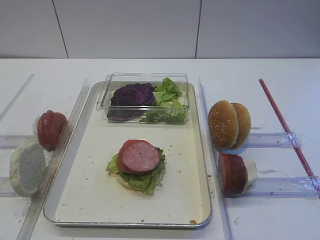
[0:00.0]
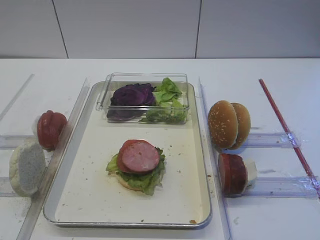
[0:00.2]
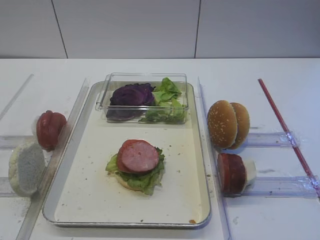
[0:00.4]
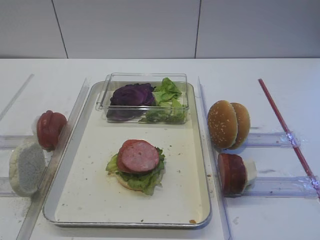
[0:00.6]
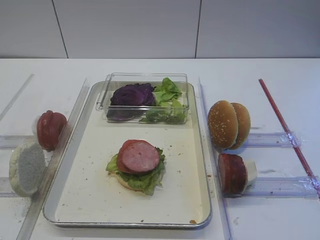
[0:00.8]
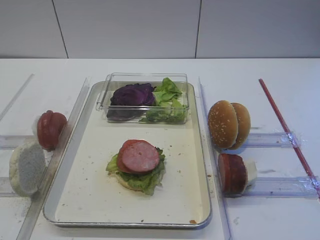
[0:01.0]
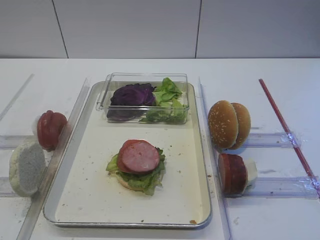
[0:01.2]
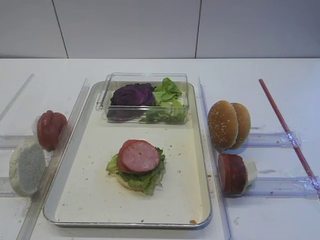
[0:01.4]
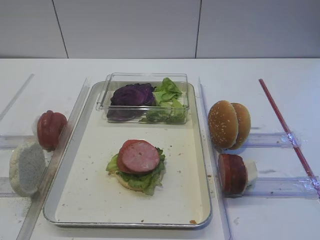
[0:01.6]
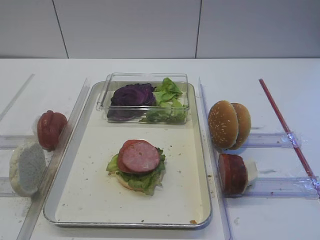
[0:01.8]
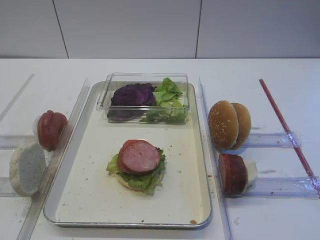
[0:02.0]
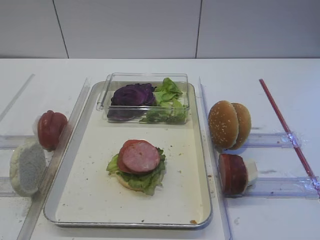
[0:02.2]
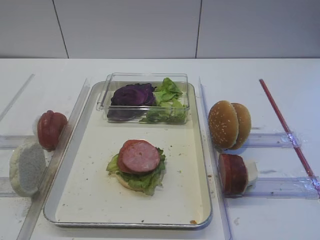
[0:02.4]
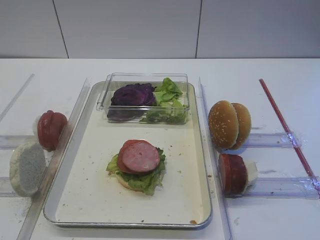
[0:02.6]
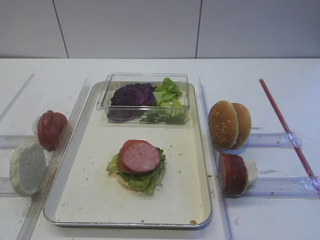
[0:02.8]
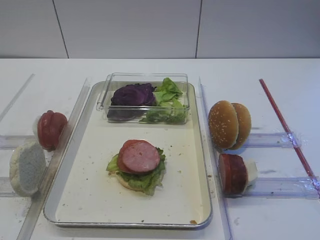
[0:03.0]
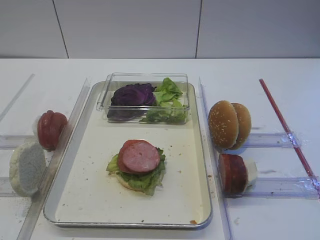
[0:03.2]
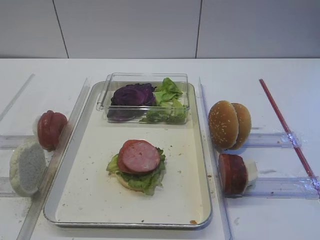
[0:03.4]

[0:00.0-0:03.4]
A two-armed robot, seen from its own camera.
0.0 to 3.4 s: Both grippers stay put.

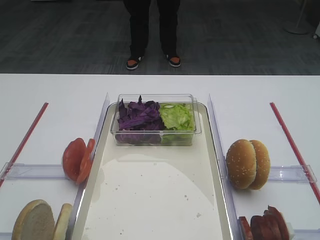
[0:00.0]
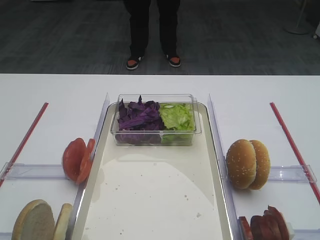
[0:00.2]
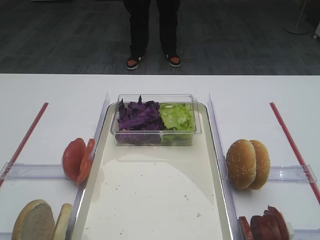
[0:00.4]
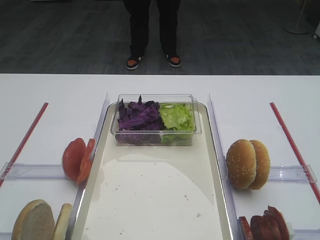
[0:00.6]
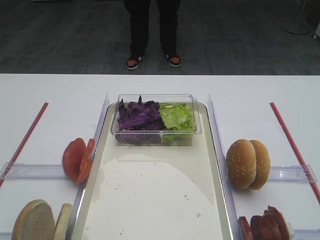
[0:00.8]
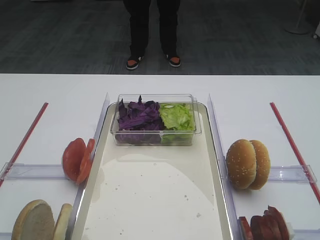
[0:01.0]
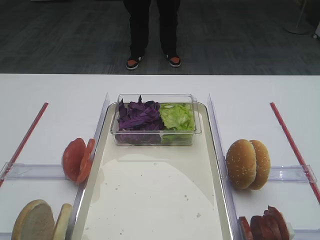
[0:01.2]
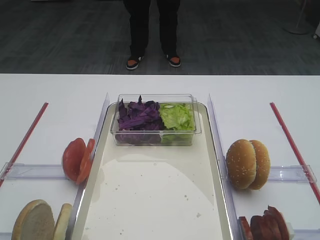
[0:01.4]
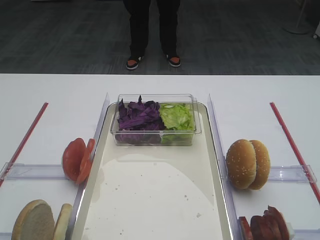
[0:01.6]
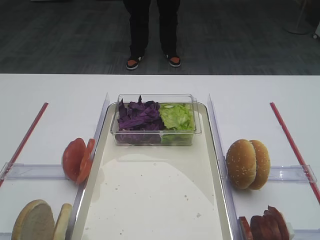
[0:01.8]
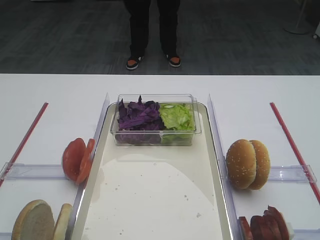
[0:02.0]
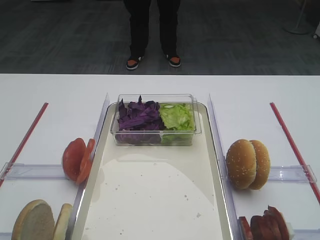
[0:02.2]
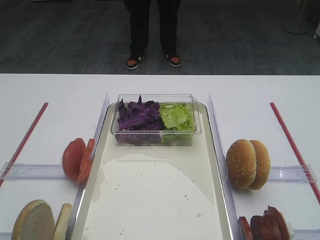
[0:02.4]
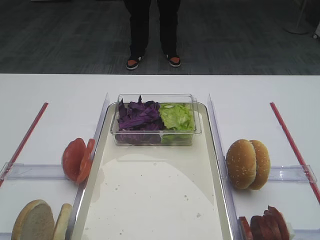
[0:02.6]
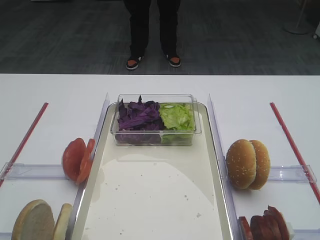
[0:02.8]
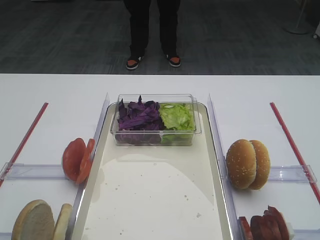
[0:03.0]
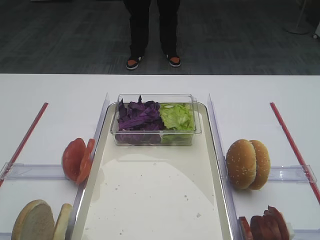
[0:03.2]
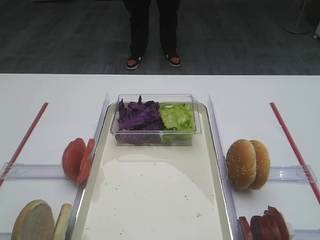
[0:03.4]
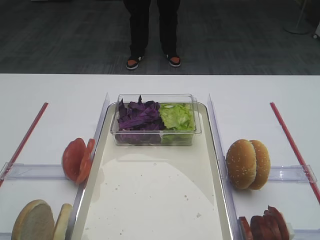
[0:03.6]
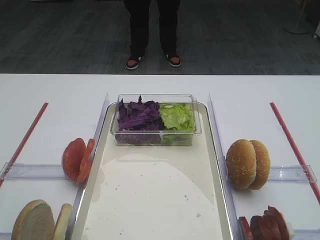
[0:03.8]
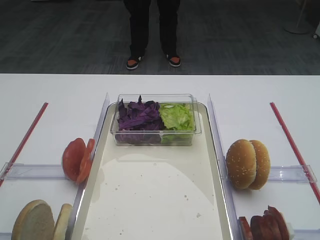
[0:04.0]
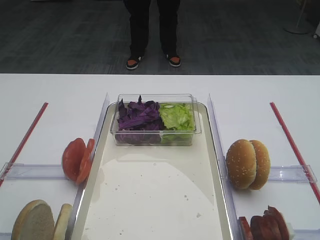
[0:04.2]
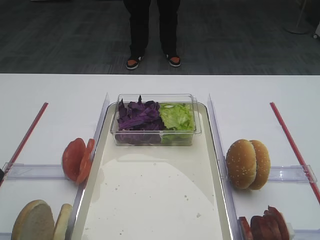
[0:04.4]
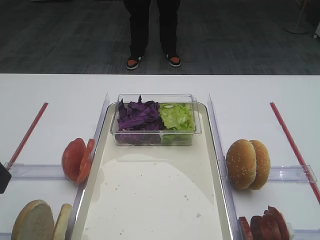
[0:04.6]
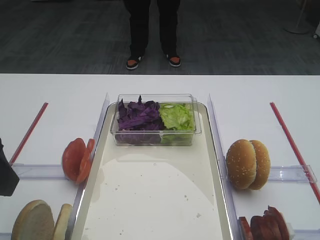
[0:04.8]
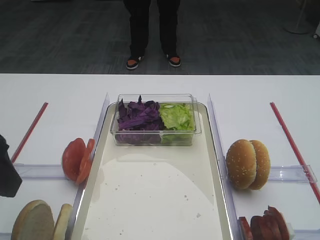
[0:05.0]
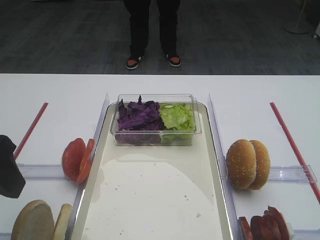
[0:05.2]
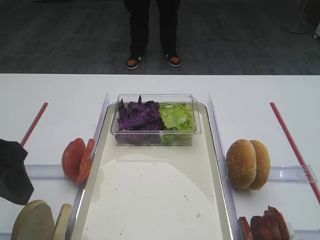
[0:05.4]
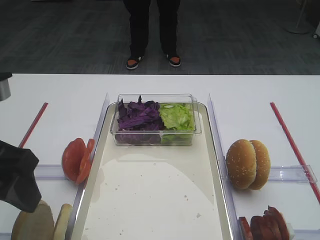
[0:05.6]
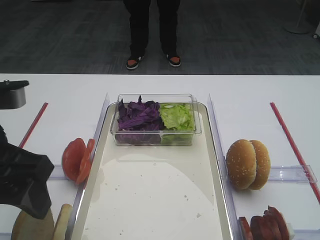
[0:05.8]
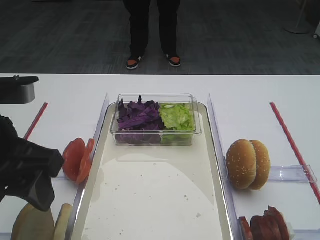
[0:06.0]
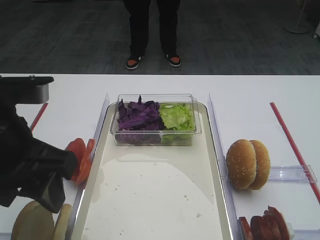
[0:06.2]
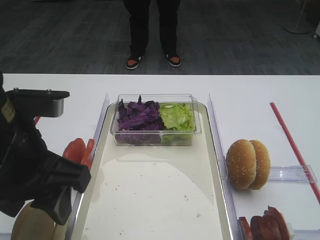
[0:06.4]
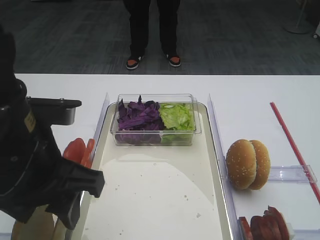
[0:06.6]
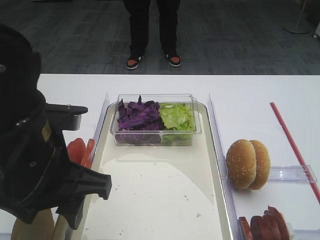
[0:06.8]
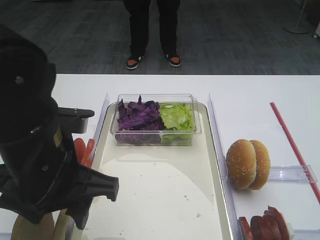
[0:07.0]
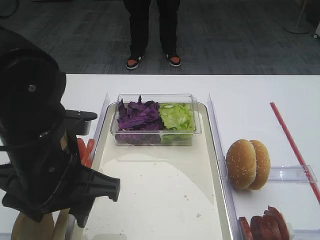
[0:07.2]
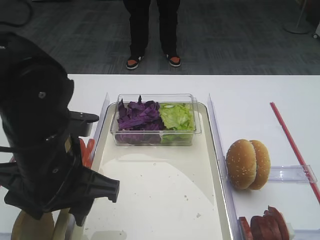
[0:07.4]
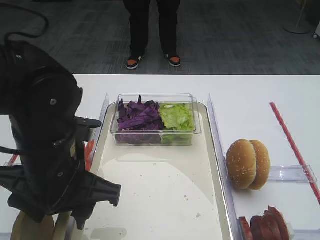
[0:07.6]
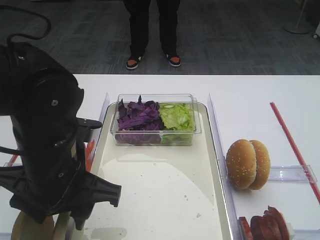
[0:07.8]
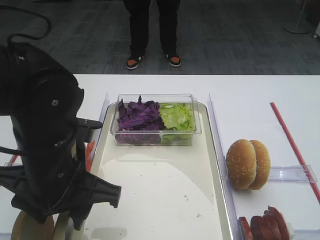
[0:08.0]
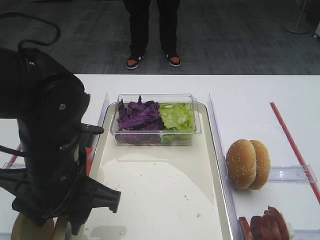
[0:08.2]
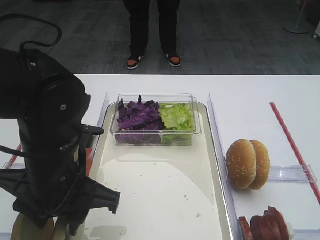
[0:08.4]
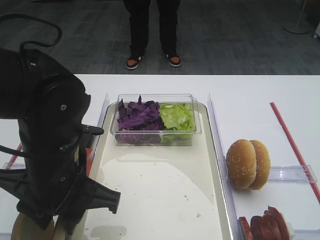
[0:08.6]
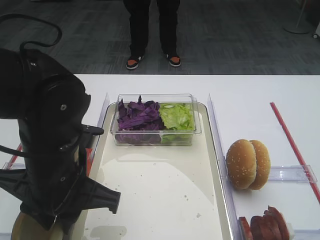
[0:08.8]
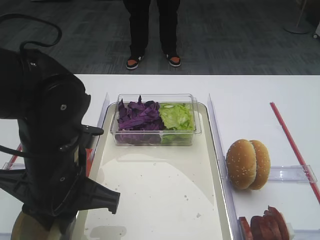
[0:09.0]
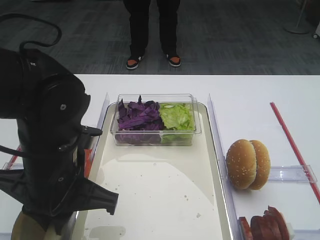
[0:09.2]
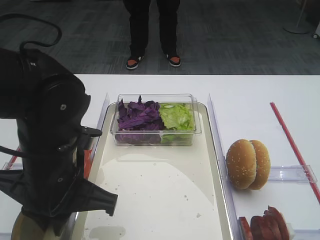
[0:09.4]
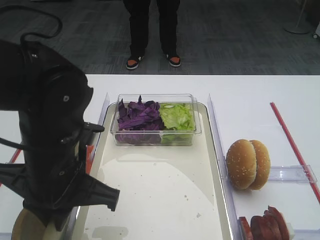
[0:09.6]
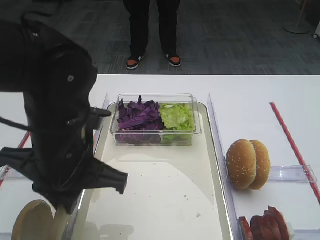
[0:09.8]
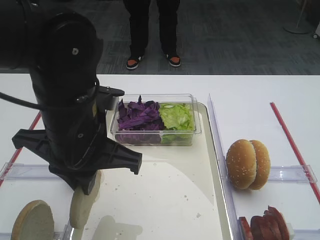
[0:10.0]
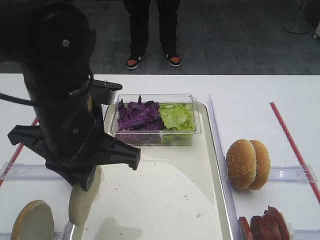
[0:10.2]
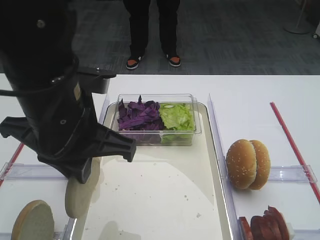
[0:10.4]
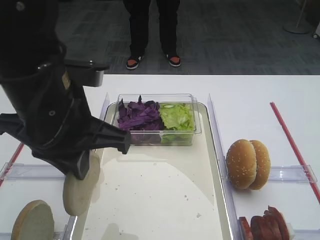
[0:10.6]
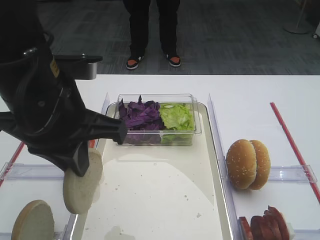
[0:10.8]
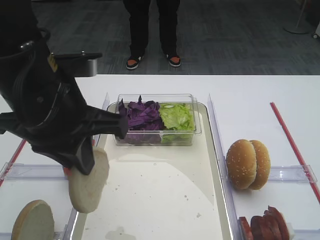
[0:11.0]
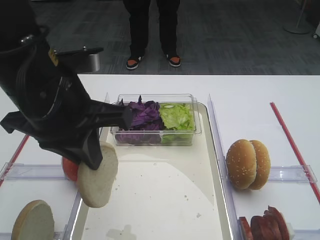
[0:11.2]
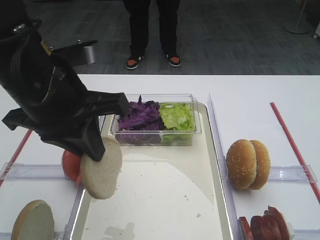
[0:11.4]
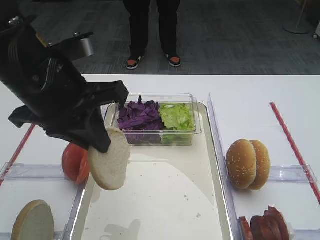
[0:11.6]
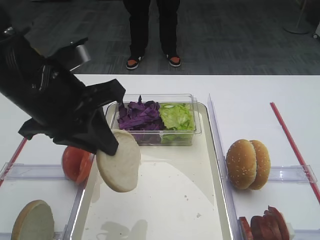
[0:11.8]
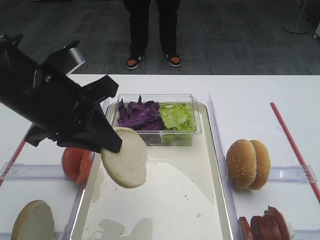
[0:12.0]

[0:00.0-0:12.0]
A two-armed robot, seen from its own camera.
Step, 0.0 to 9.8 s: Pick up the bread slice with the left gripper.
4.4 to 6.0 s: The left gripper heads to the right, covering roughly 5 cm.
6.0 to 7.6 s: The left gripper travels downward and to the right by approximately 10 cm.
7.6 to 9.0 s: The left gripper closes.
9.0 to 10.4 s: The left gripper moves upward, some 10 cm.

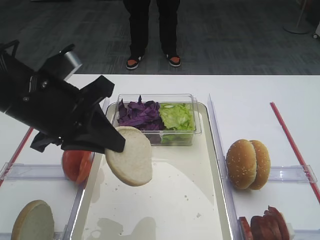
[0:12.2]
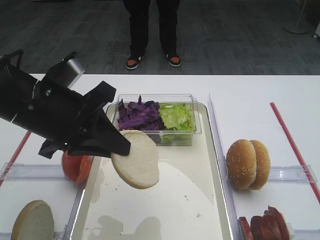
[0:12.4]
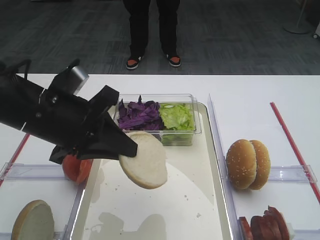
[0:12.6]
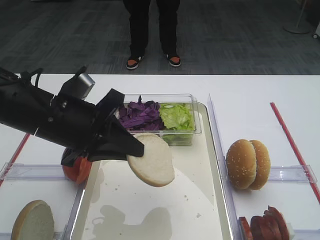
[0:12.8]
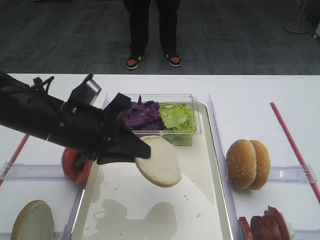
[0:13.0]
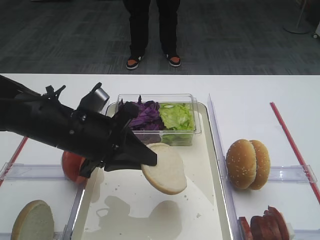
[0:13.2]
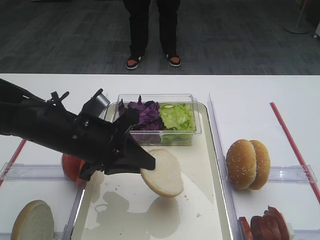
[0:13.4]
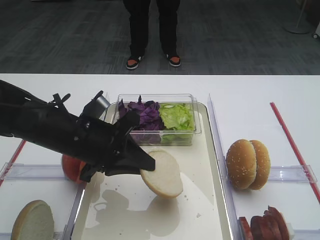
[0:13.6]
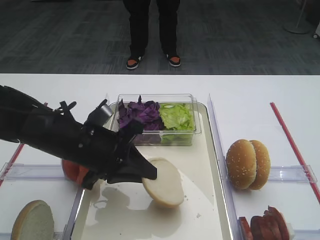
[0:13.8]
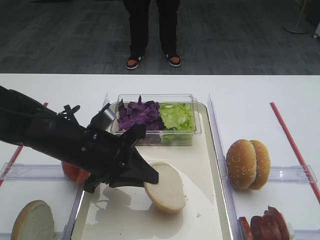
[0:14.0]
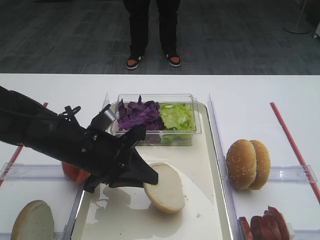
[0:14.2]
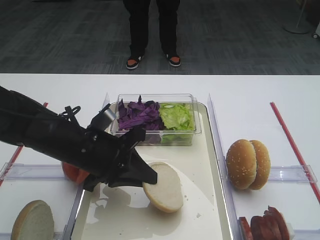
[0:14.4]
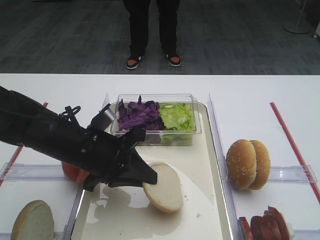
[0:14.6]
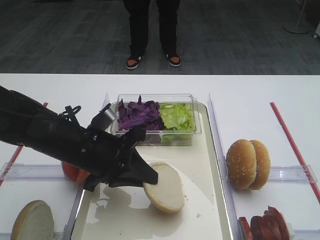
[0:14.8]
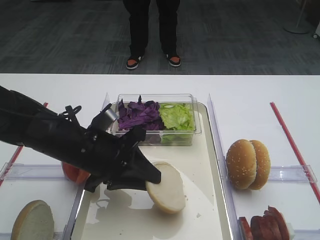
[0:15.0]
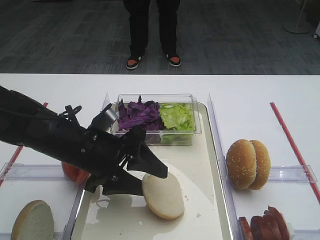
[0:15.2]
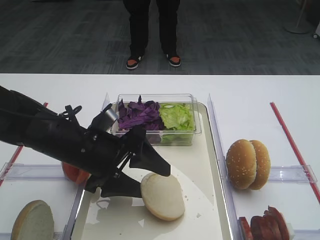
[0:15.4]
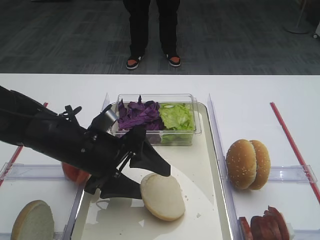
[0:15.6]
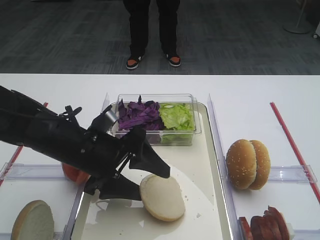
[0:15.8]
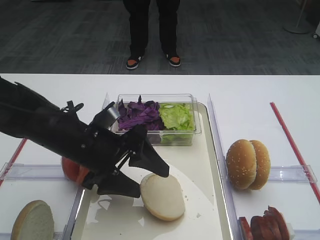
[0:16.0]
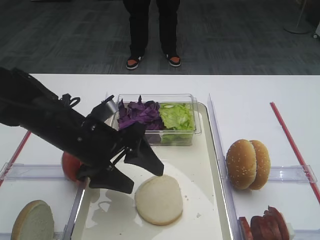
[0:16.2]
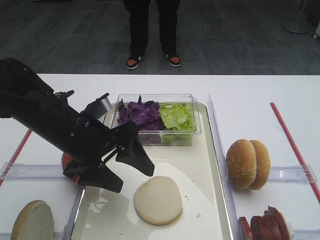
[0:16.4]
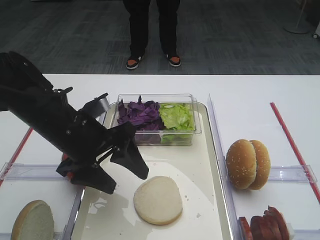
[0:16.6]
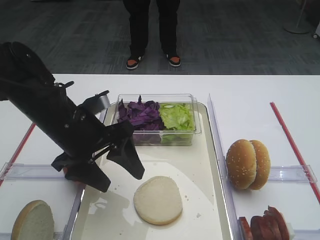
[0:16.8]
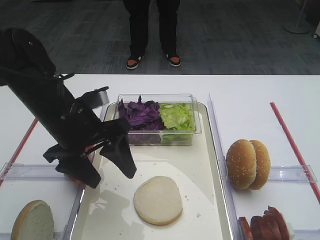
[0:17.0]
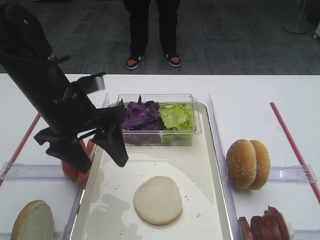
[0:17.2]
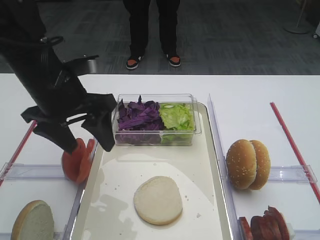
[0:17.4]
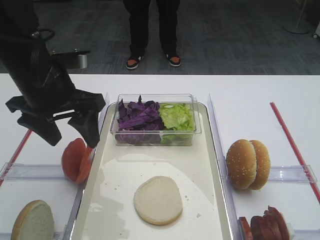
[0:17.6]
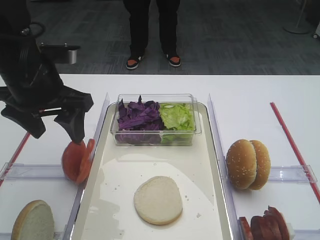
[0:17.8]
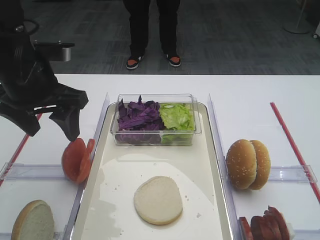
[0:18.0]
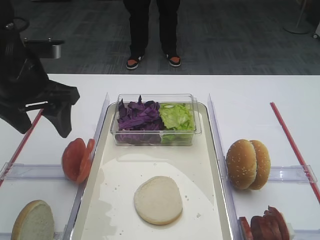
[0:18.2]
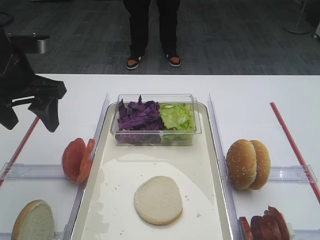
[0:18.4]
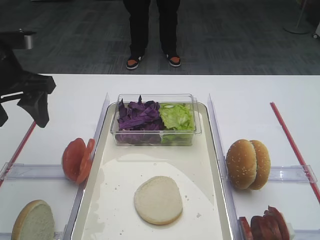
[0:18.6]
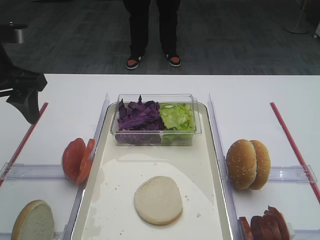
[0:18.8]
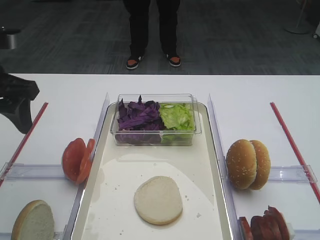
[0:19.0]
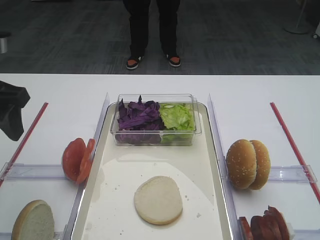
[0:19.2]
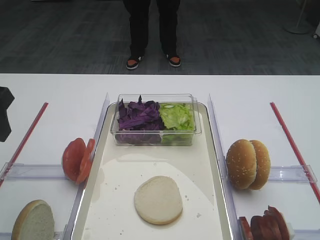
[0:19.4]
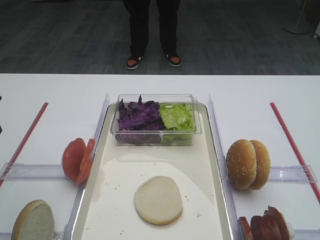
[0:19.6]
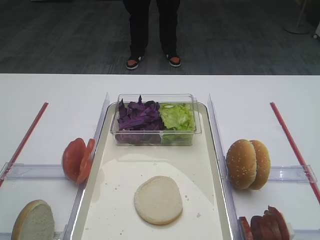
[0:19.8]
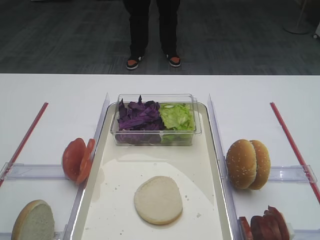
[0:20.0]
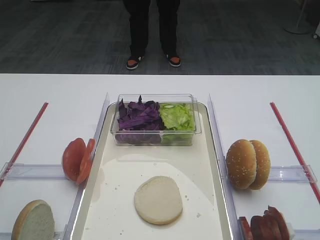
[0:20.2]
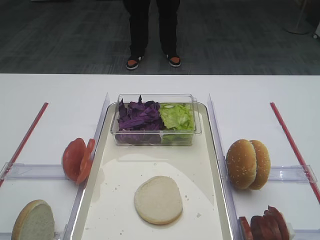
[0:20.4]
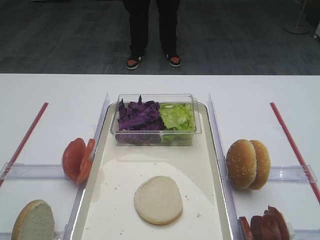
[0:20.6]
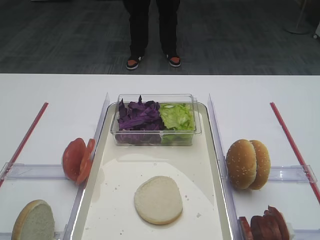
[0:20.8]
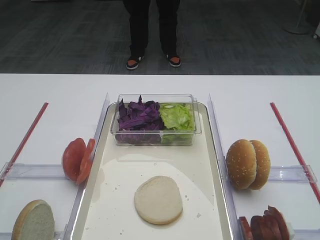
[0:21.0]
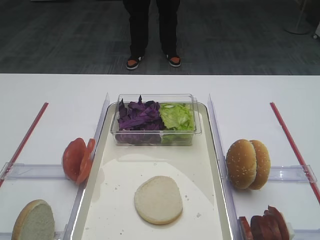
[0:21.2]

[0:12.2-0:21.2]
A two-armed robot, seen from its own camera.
Step, 12.2 to 16.8 s: Place the bread slice on the tray with the left gripper.
12.2 to 13.8 s: The left gripper travels downward by roughly 10 cm.
13.8 to 15.2 s: The left gripper opens its fingers.
15.2 to 16.6 s: The grippers stay close to where they were, moving slightly.
16.6 to 18.2 s: The left gripper moves upward and to the left, about 10 cm.
18.2 to 19.8 s: The left gripper shifts roughly 15 cm backward, to the left and upward.
